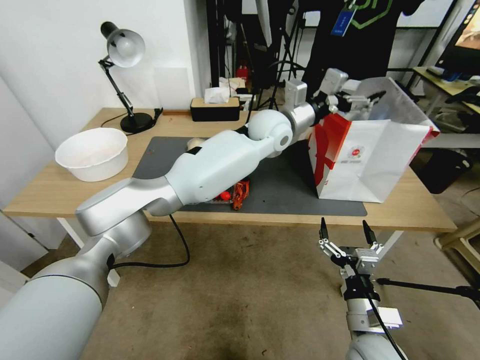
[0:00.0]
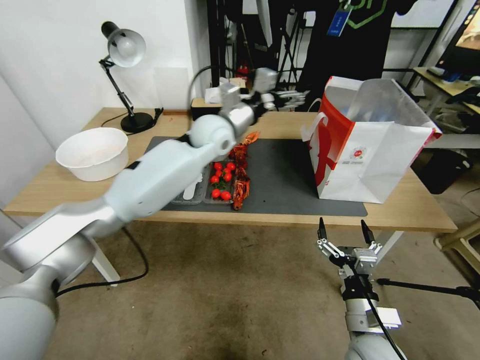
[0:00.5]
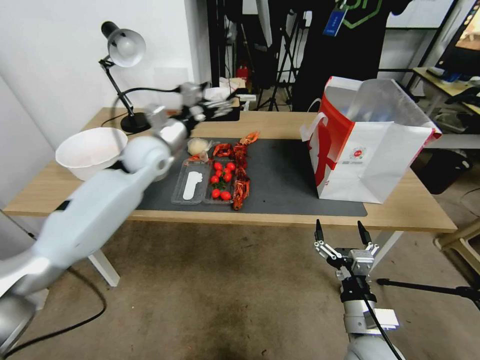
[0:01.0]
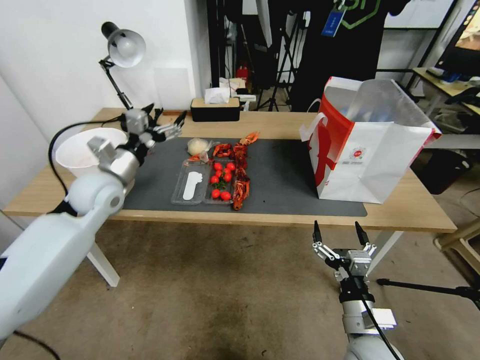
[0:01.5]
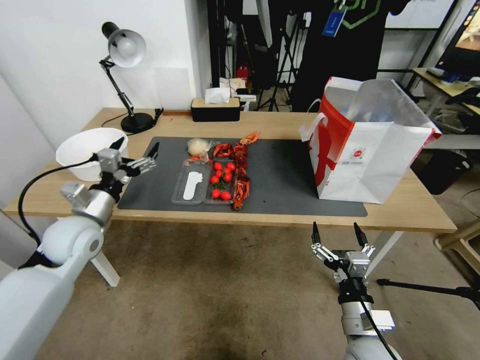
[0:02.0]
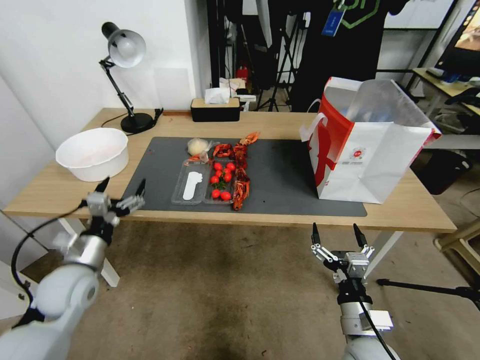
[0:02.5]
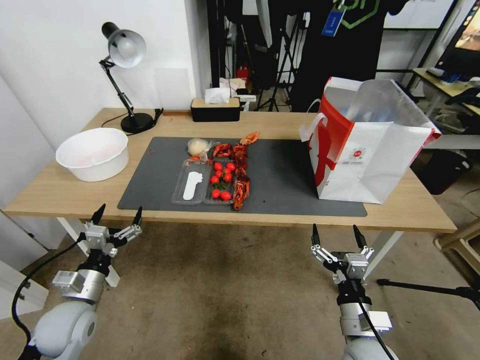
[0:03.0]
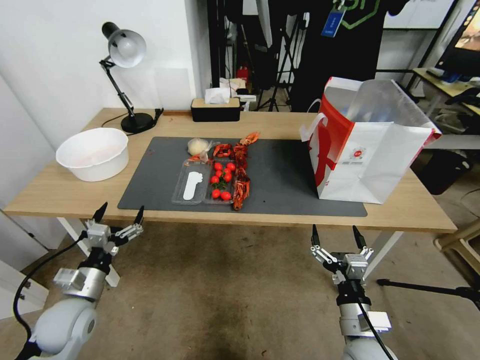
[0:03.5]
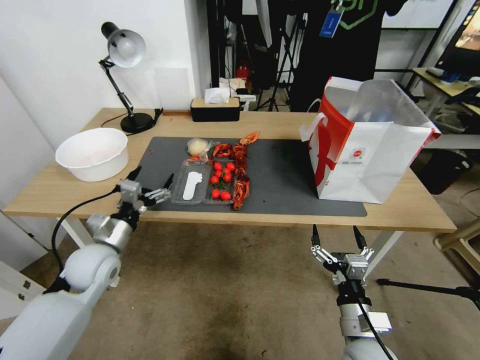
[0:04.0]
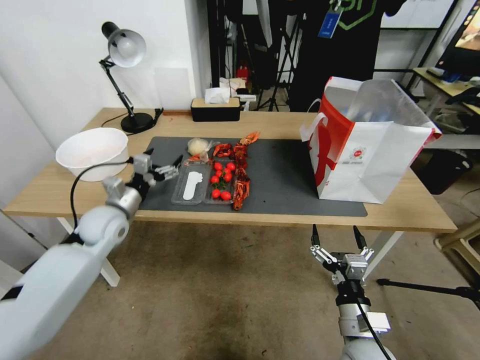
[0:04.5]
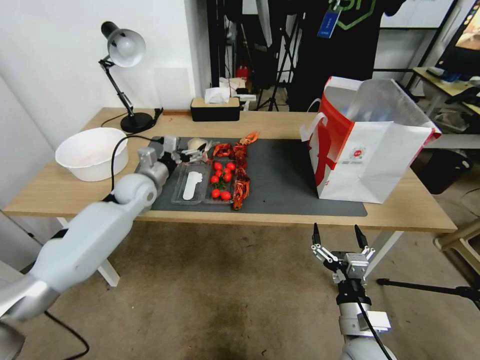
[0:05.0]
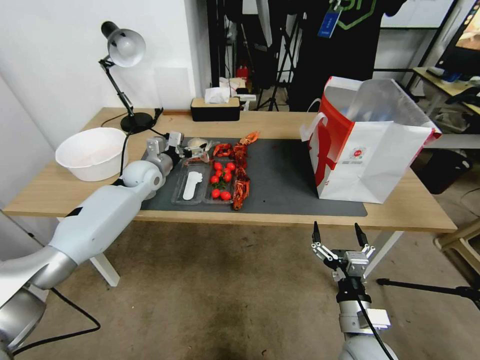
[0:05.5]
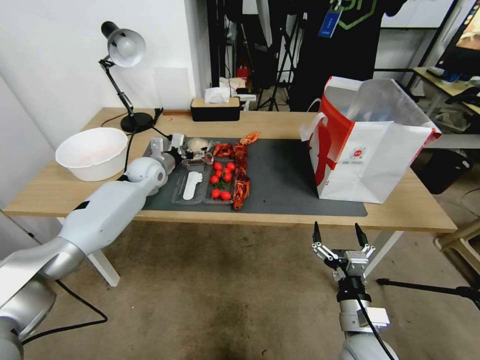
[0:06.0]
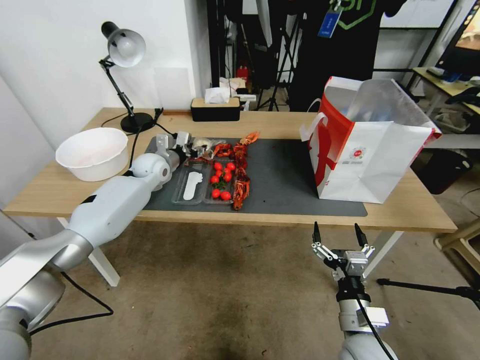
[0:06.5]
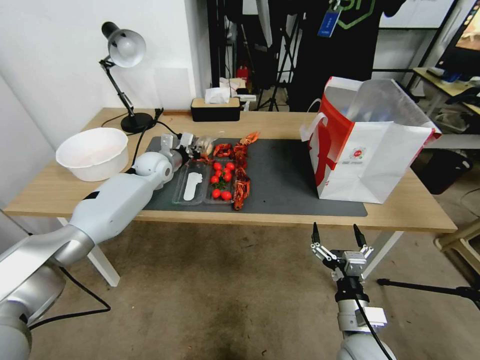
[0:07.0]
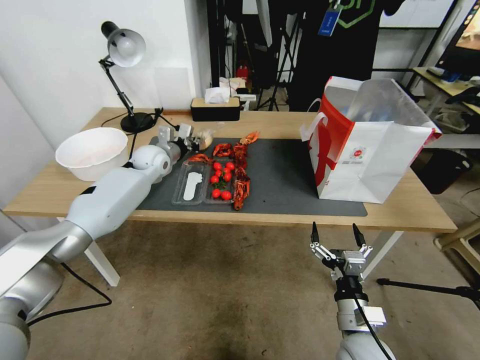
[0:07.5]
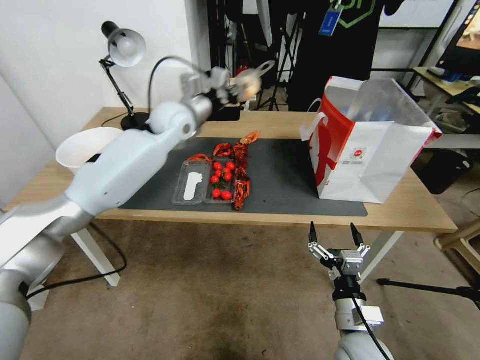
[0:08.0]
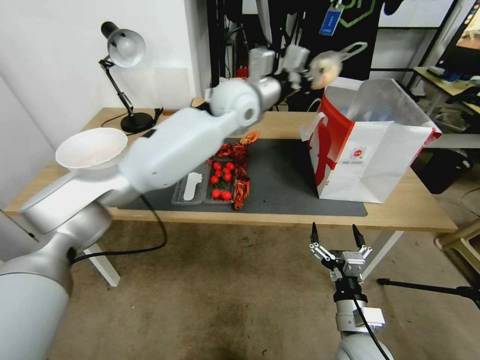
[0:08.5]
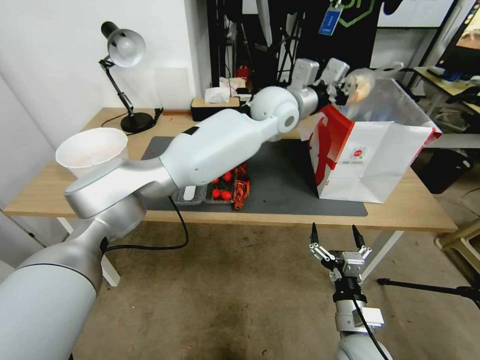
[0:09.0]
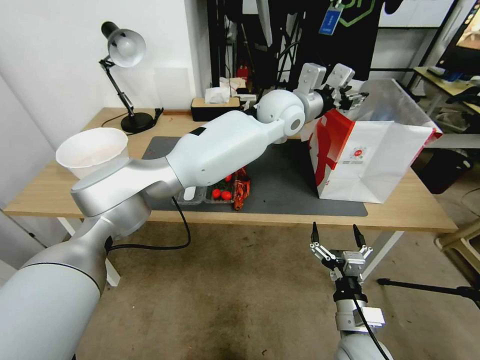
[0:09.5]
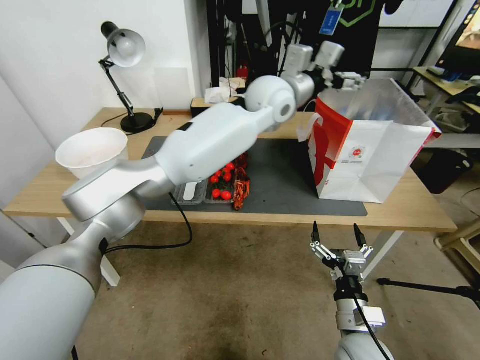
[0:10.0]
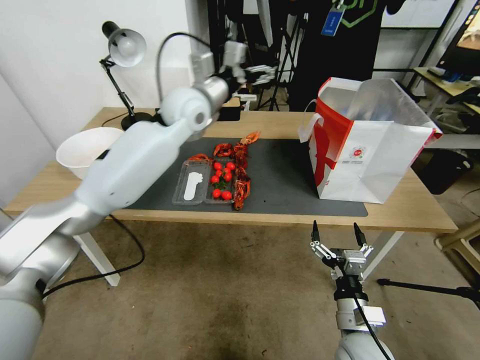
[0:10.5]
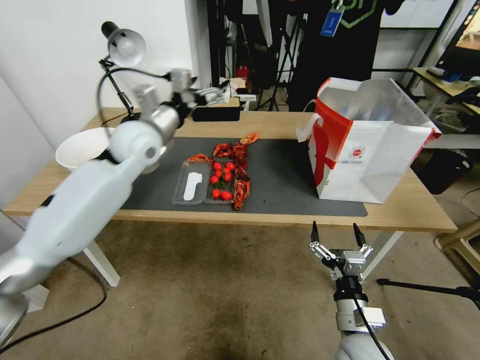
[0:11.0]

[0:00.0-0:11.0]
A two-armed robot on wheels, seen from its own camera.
0:00.0 to 0:02.0: The left gripper heads to the left and backward, covering some 40 cm.
0:02.0 to 0:03.5: The left gripper travels downward and backward by roughly 20 cm.
0:03.5 to 0:05.5: The left gripper moves forward, some 30 cm.
0:05.5 to 0:07.5: The left gripper travels forward by about 10 cm, and closes its fingers.
0:07.5 to 0:09.0: The left gripper heads to the right and upward, covering roughly 35 cm.
0:09.0 to 0:11.0: The left gripper is displaced to the left by approximately 30 cm, and opens.

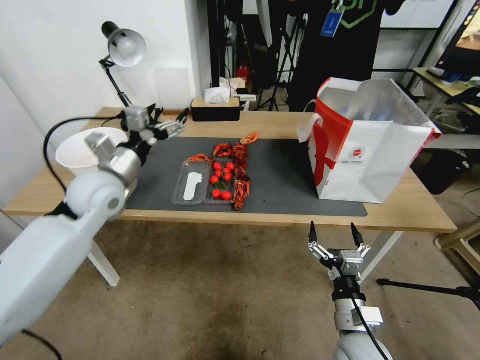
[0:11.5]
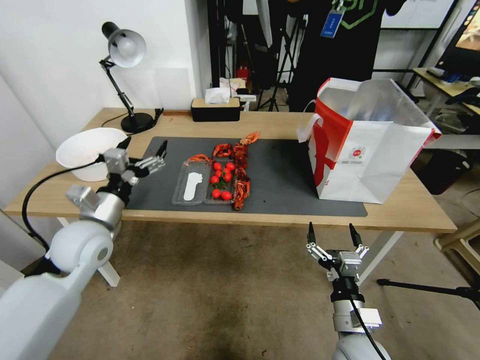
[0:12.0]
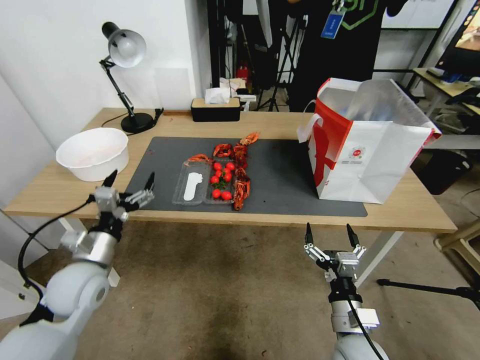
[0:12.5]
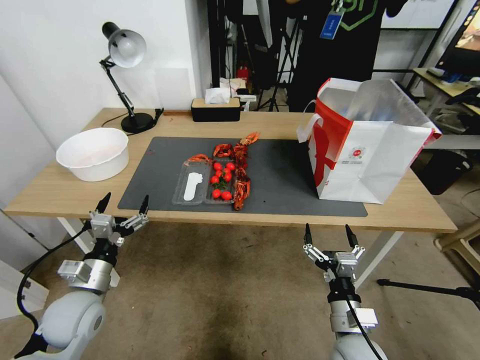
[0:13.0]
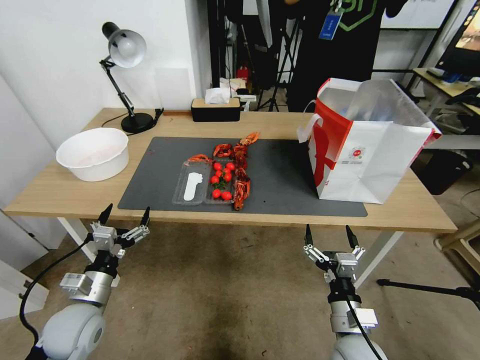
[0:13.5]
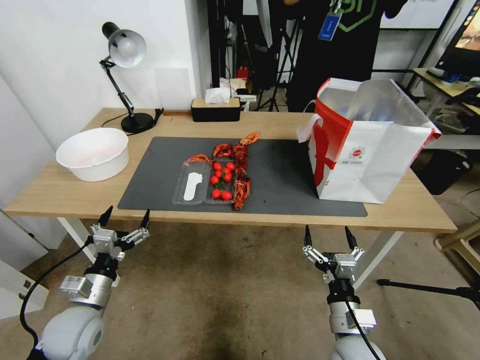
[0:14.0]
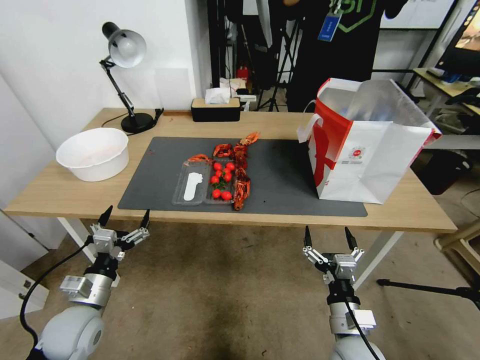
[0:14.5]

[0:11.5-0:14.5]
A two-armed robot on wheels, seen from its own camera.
0:11.5 to 0:13.0: The left gripper goes some 25 cm downward and backward.
0:13.0 to 0:14.5: The grippers make only small movements.
